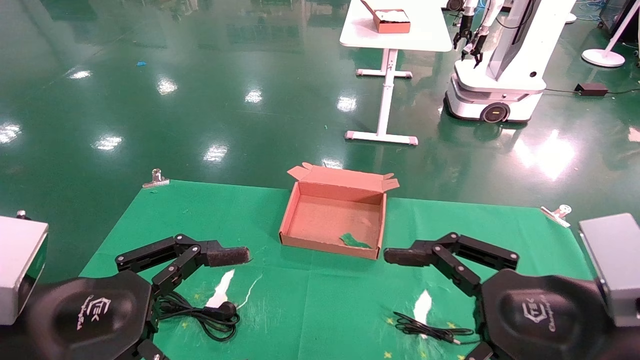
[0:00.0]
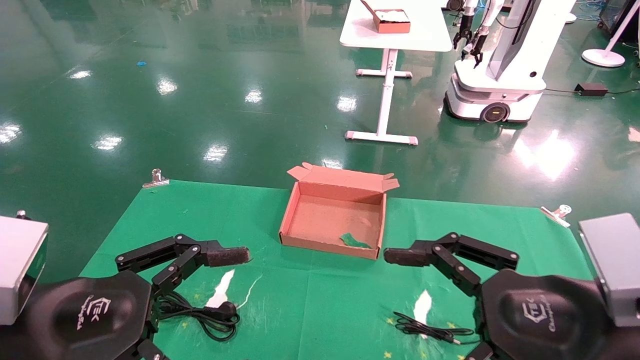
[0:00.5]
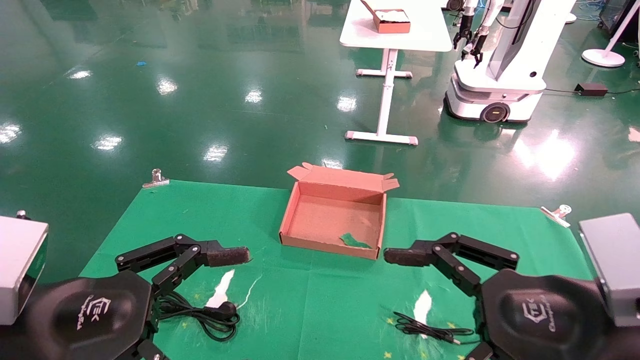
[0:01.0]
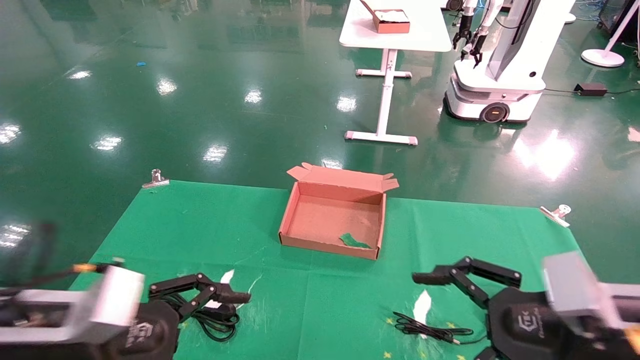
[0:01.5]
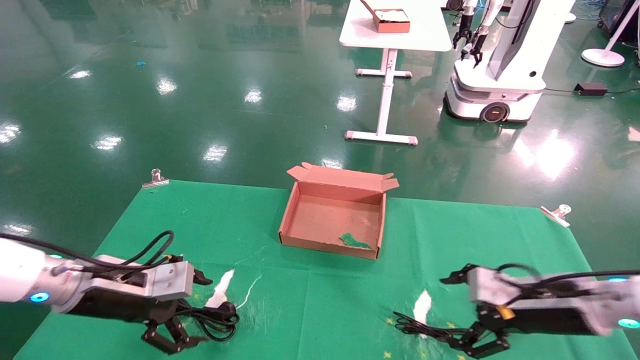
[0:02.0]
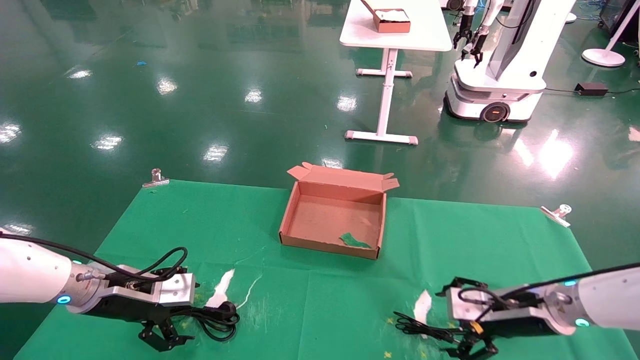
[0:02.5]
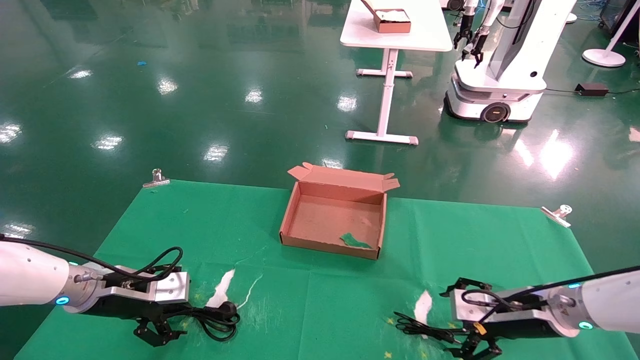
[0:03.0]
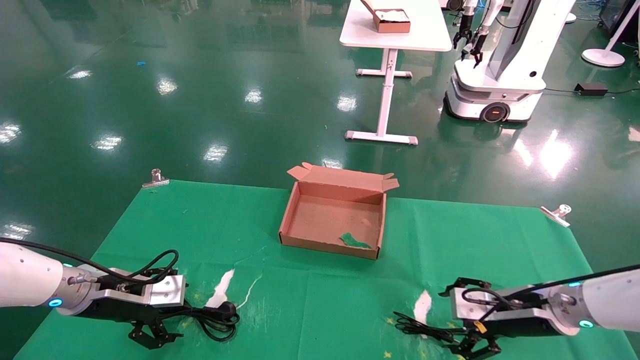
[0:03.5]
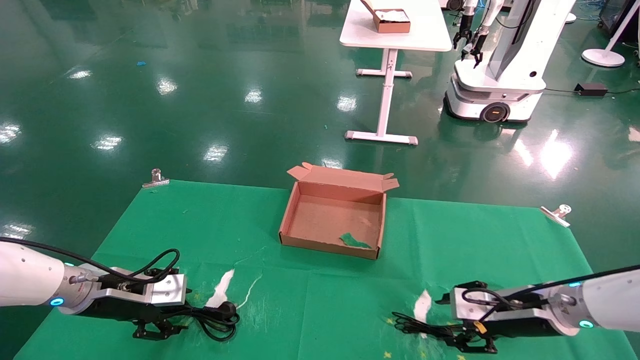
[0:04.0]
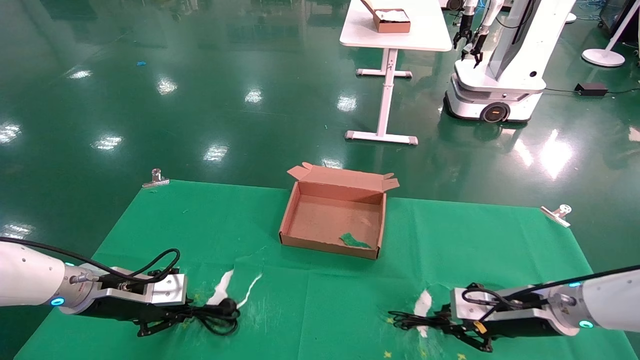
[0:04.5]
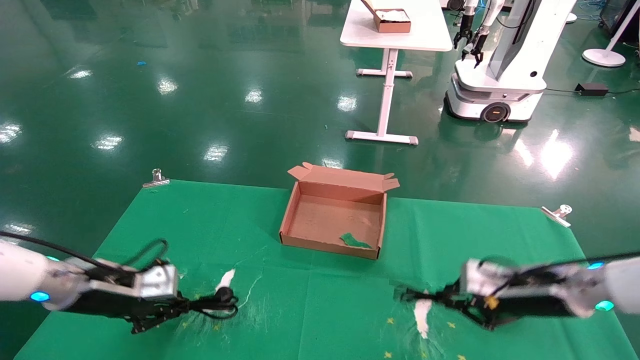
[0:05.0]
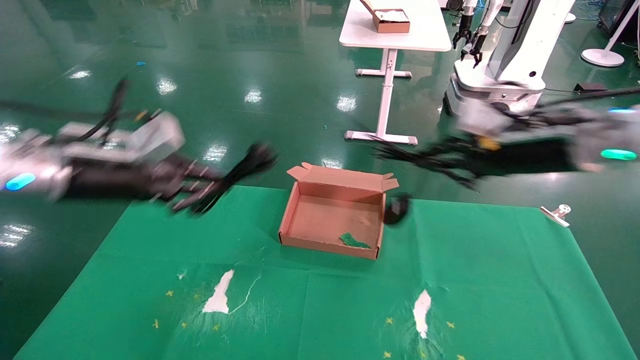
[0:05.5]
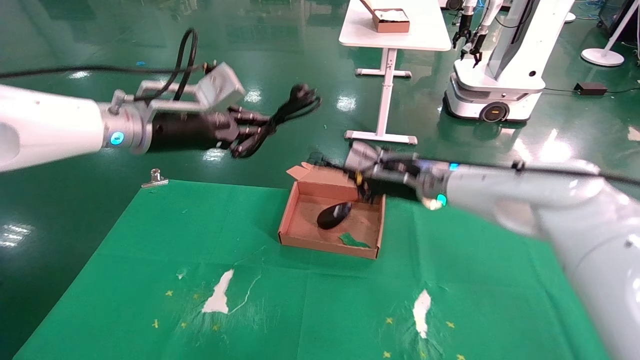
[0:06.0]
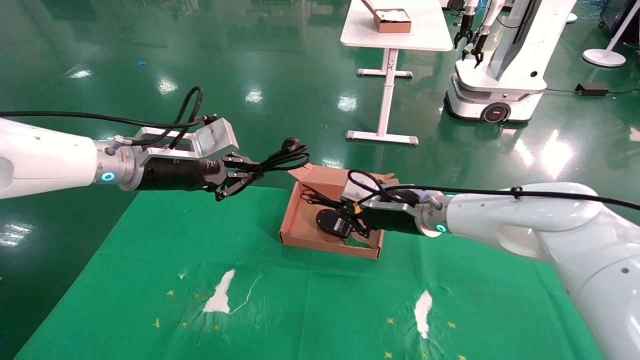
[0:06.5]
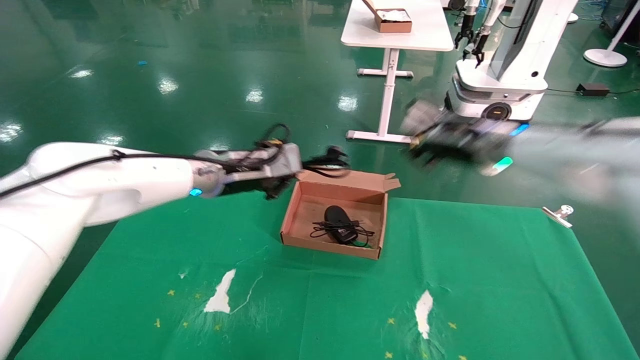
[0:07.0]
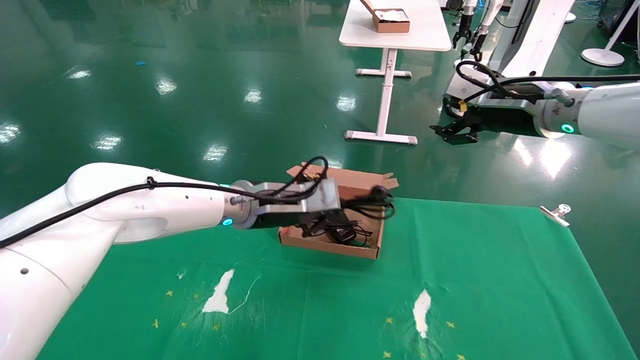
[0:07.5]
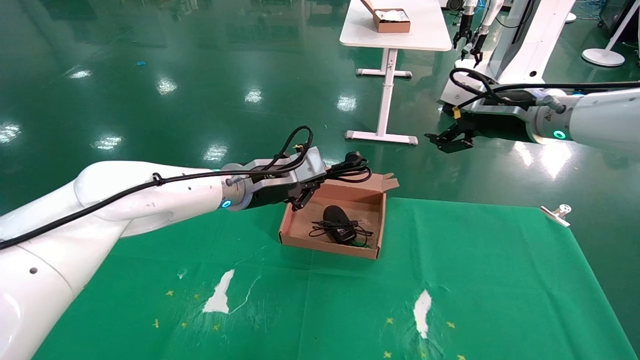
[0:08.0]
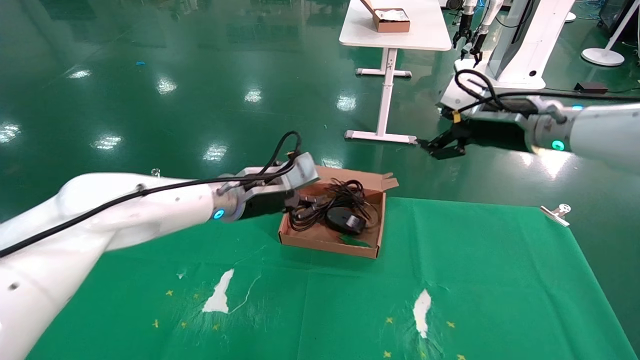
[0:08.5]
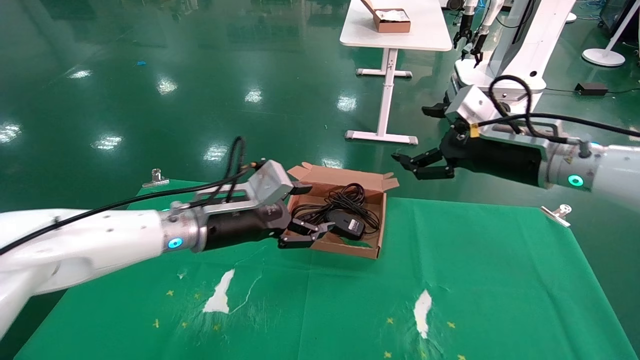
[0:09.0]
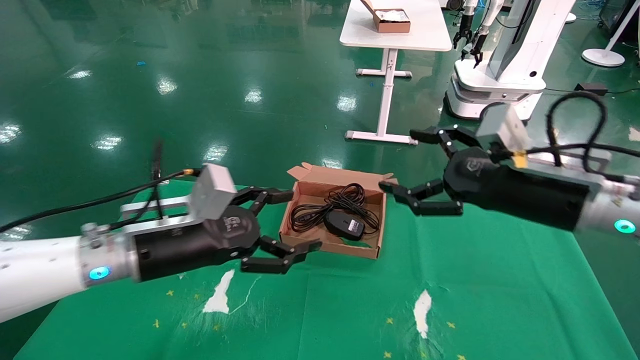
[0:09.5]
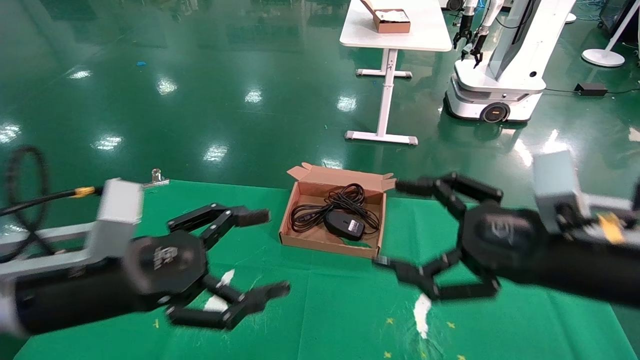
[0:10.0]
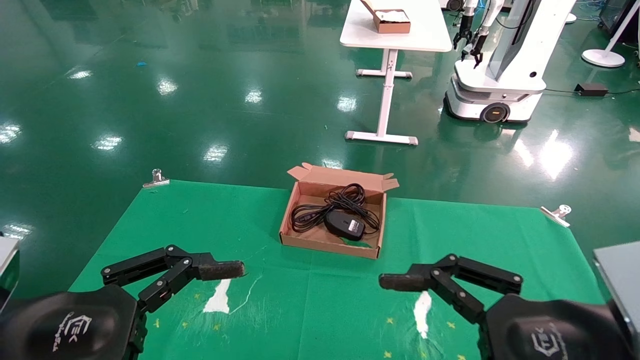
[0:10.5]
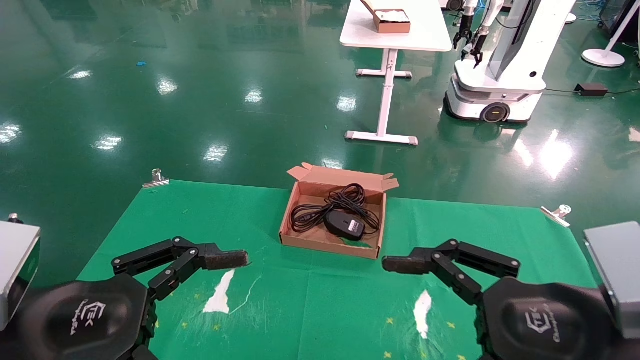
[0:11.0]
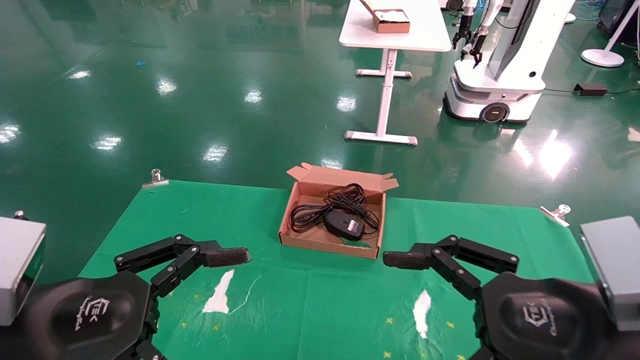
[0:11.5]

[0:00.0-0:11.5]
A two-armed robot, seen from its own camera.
Step, 0:01.5 to 0:04.5: Grab and lift both the mouse and power cord from the accessory packaging area at the same time.
Step, 0:05.0 to 0:08.5: Place the mouse and power cord into the box.
0:00.0 to 0:02.0: The left gripper shifts about 20 cm forward. Meanwhile the right gripper shifts approximately 20 cm forward and downward.
0:02.0 to 0:04.0: The right gripper ends up approximately 5 cm from where it was, while the left gripper changes place by about 5 cm.
0:04.0 to 0:06.0: The left gripper is displaced upward and to the right by roughly 25 cm, and closes its fingers. The right gripper is displaced to the left, upward and forward by some 25 cm, and closes up.
0:06.0 to 0:07.5: The right gripper is displaced to the right and upward by some 15 cm, and opens its fingers; the left gripper goes about 15 cm to the right and downward.
0:07.5 to 0:09.5: The right gripper shifts some 15 cm backward and downward. Meanwhile the left gripper is displaced backward and to the left by some 15 cm, and opens.
0:09.5 to 0:11.5: Both grippers move backward, some 15 cm.
